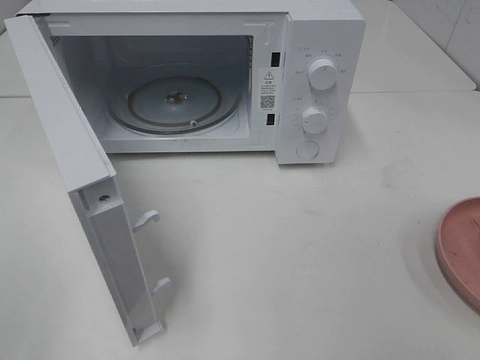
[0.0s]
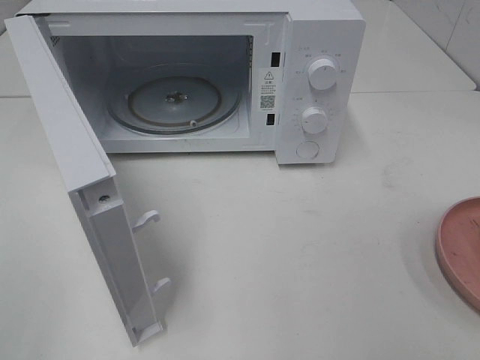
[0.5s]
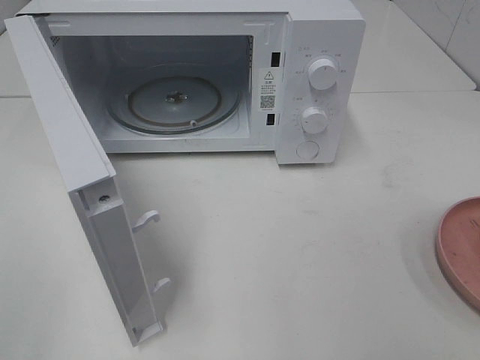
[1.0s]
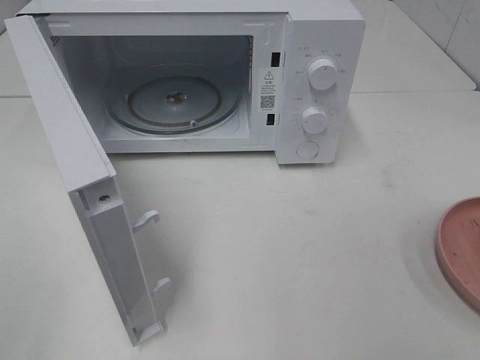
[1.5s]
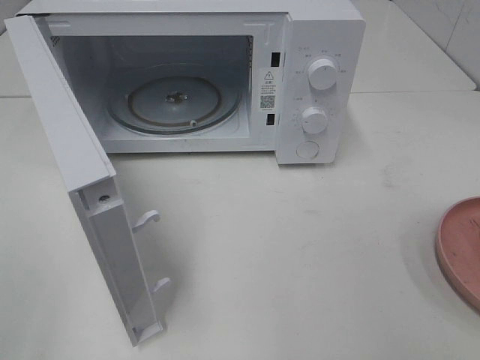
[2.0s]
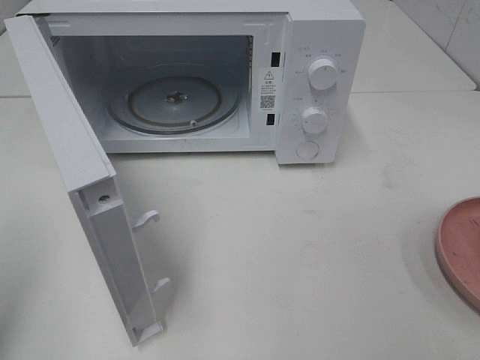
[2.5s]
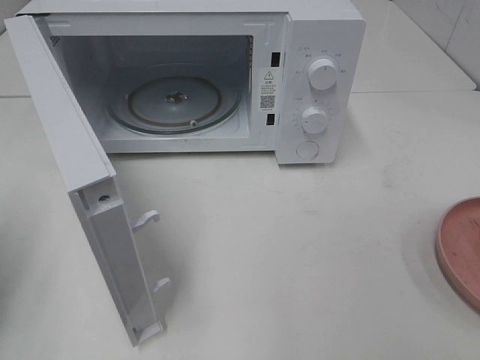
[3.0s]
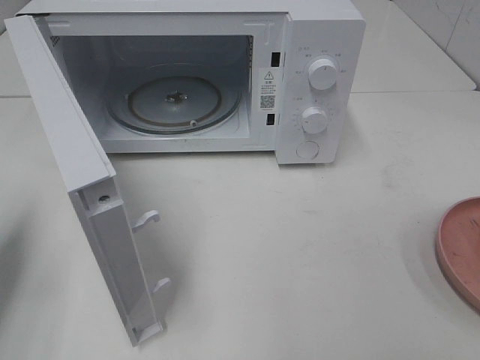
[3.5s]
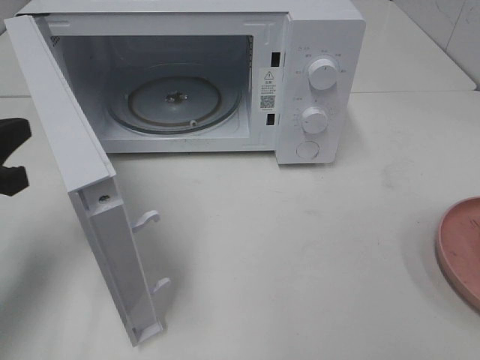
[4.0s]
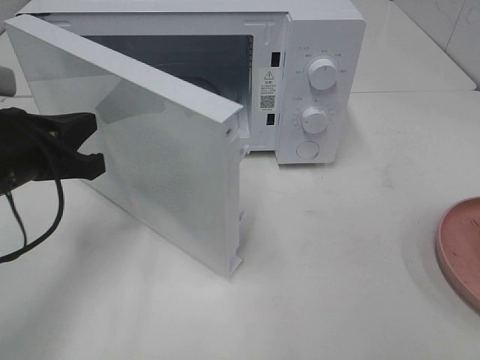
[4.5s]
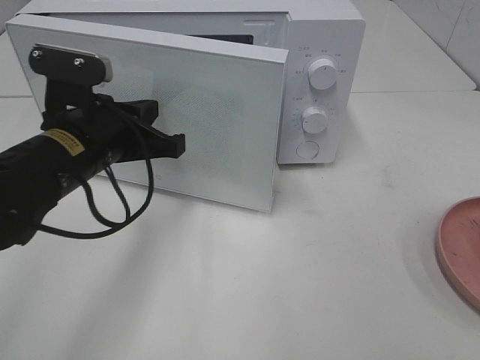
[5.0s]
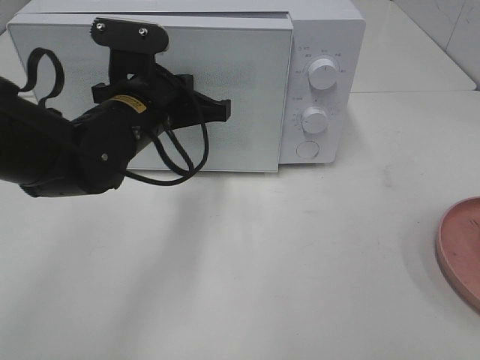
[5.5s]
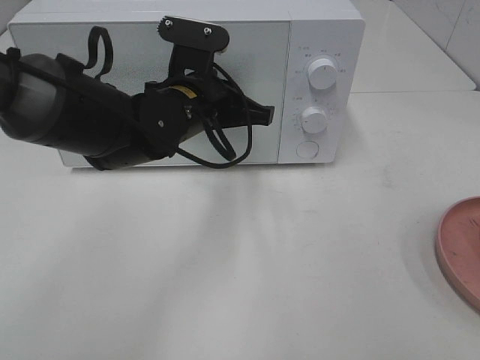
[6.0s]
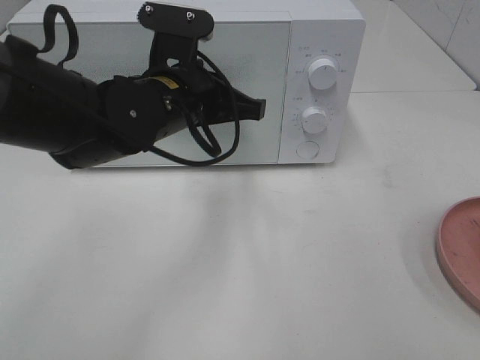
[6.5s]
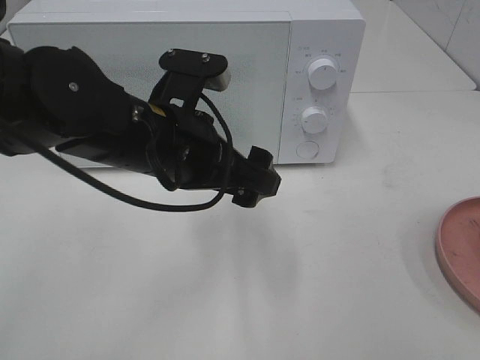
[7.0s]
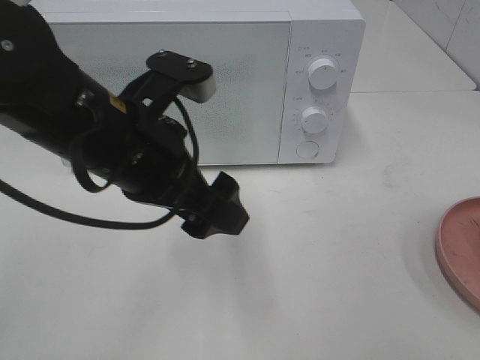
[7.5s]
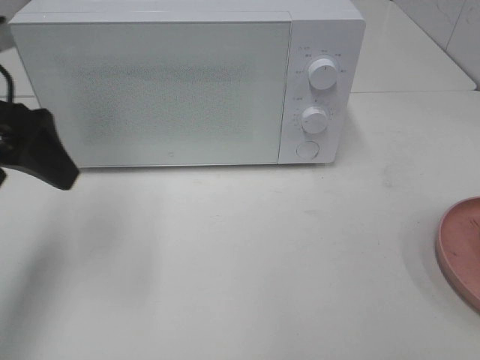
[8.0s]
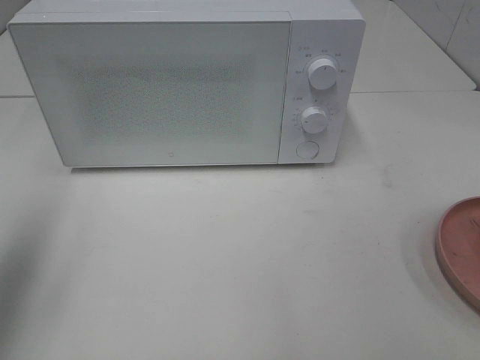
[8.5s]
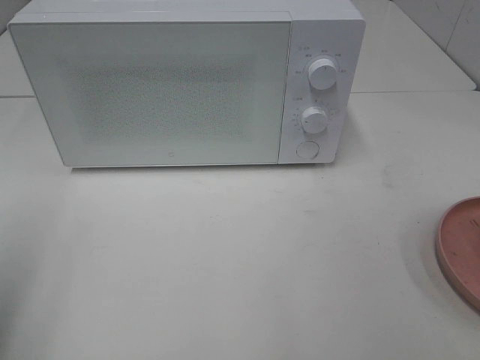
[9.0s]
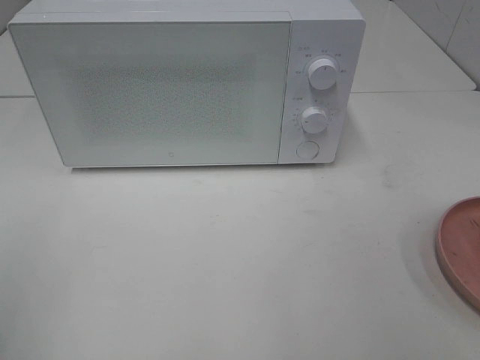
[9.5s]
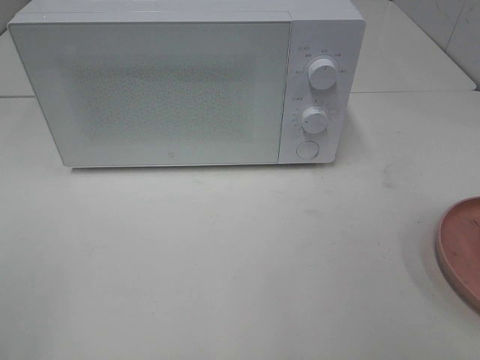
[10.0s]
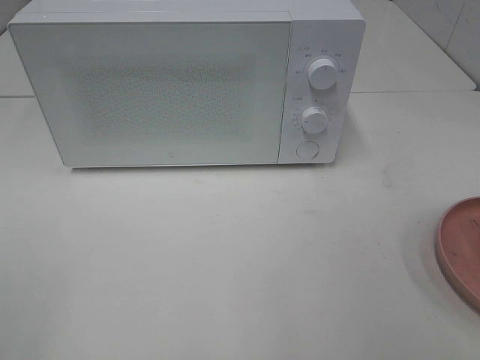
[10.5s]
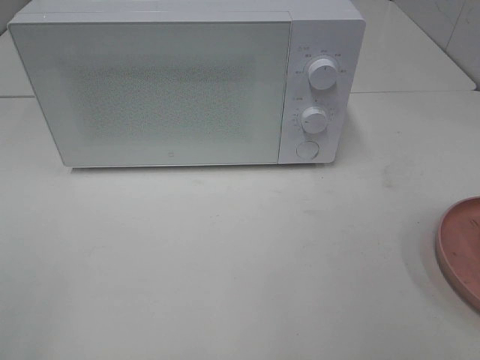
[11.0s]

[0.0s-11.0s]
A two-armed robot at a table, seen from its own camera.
Task of the whole recording: Heat the burger.
Step, 0.0s to 6.5s: Left hand: close the microwave door.
2.0s to 3.5s: The left gripper shifts about 20 cm forward and downward, and closes up.
3.5s to 5.5s: The left gripper heads to the right and forward, covering some 25 cm.
5.5s to 7.5s: The left gripper goes about 10 cm backward and upward, and opens.
7.5s to 9.0s: The left gripper goes approximately 25 cm to the left and backward.

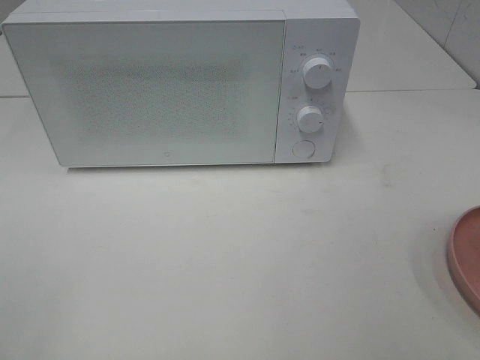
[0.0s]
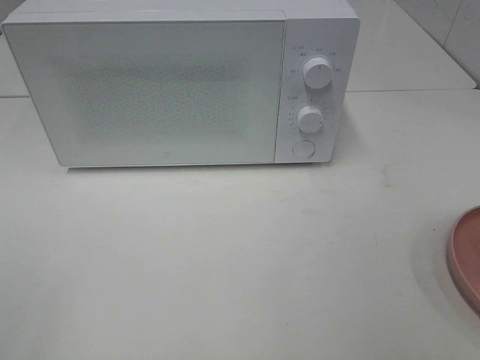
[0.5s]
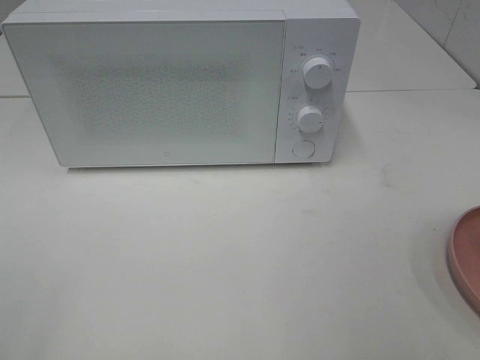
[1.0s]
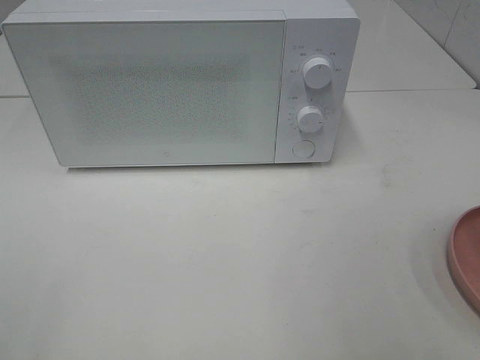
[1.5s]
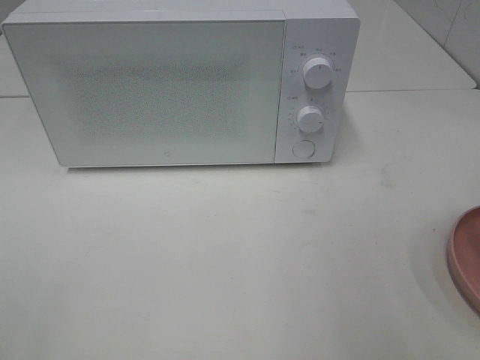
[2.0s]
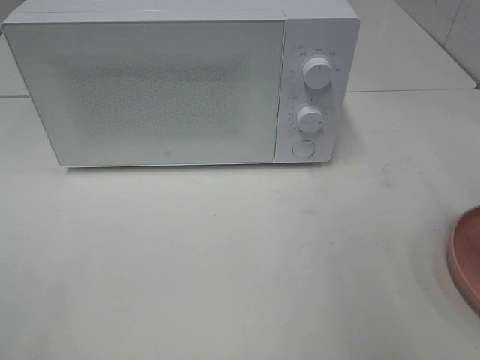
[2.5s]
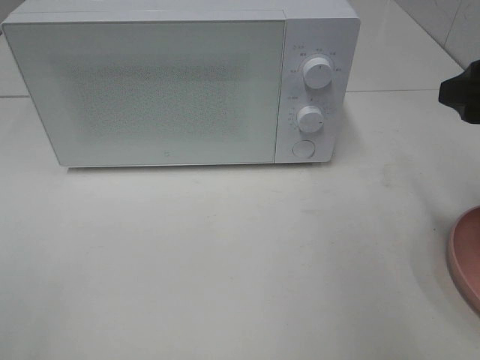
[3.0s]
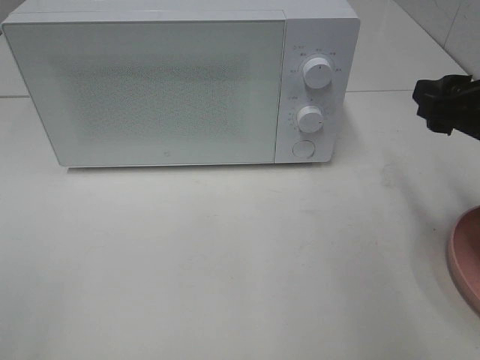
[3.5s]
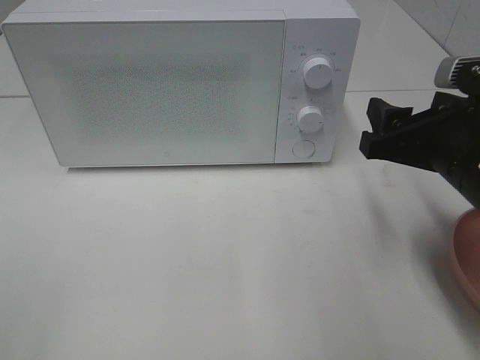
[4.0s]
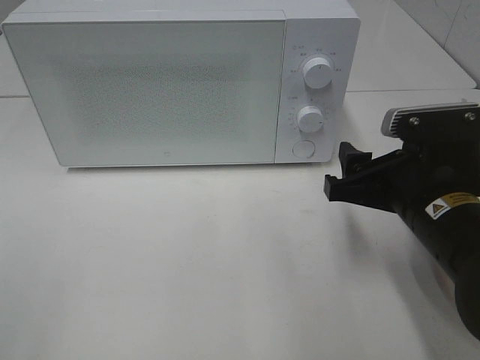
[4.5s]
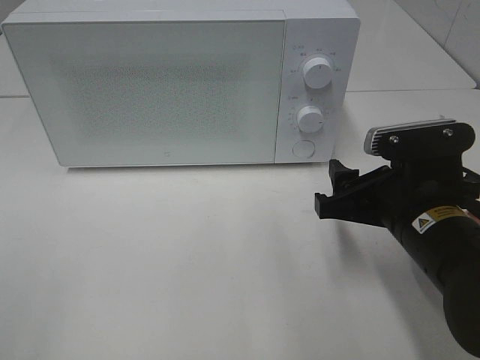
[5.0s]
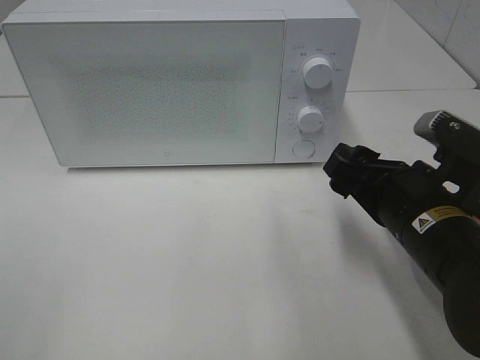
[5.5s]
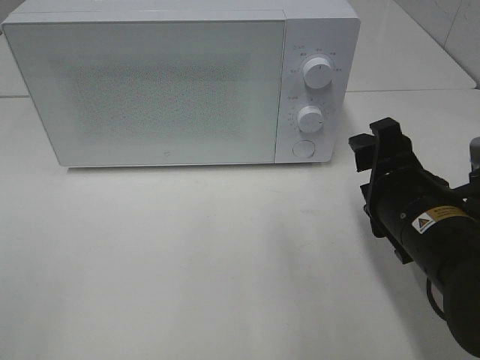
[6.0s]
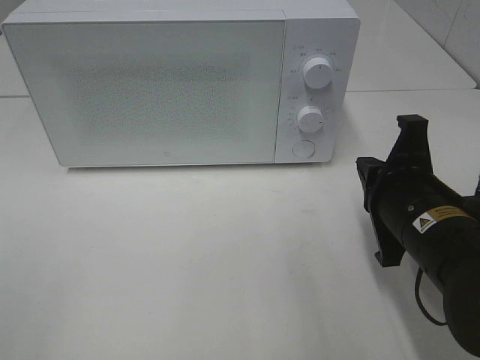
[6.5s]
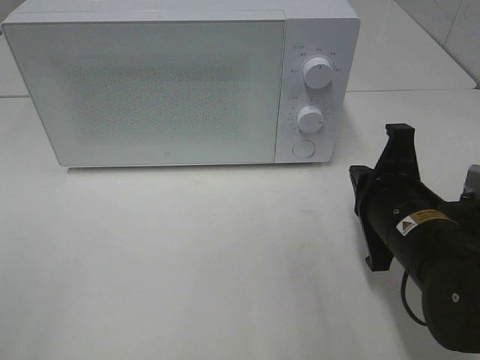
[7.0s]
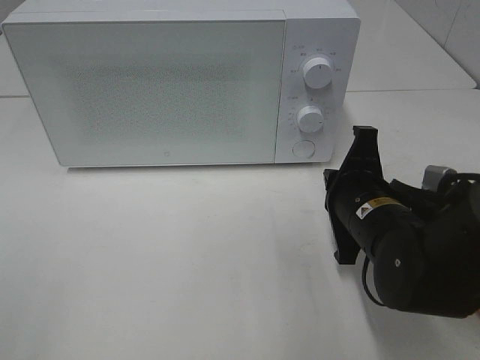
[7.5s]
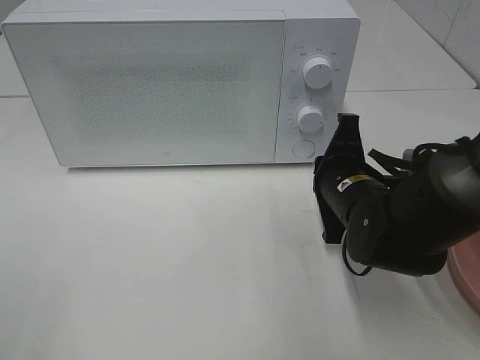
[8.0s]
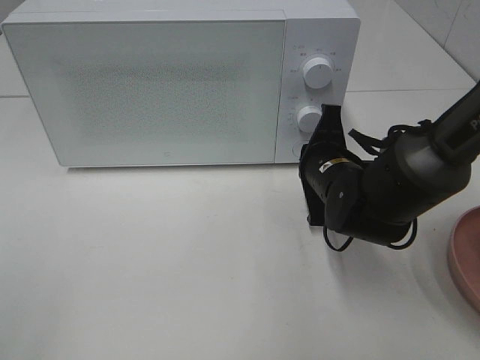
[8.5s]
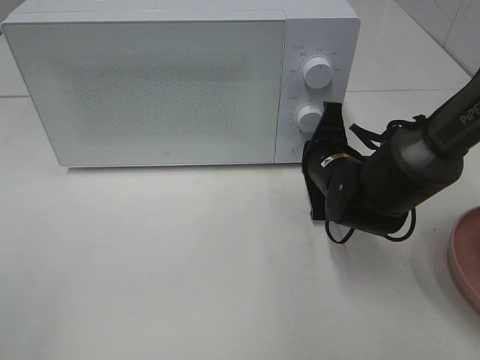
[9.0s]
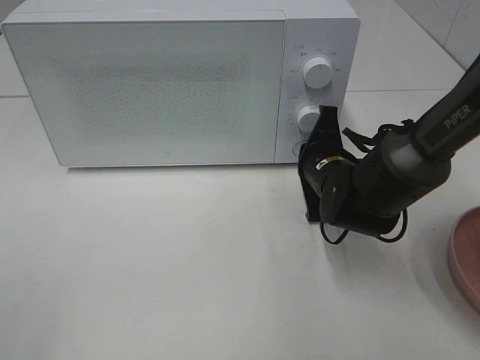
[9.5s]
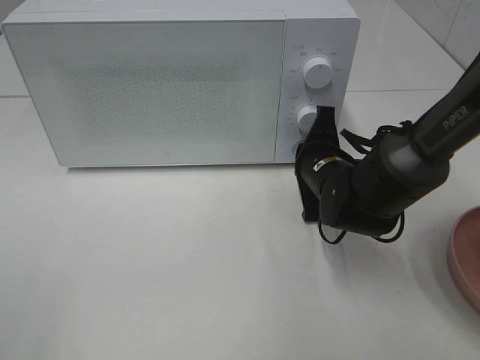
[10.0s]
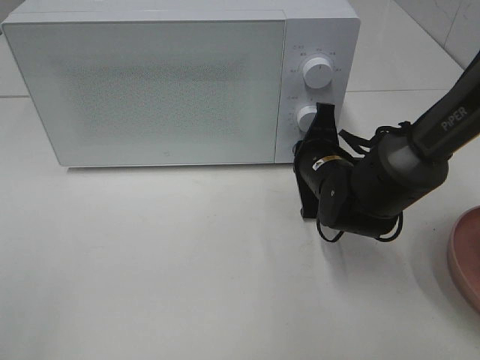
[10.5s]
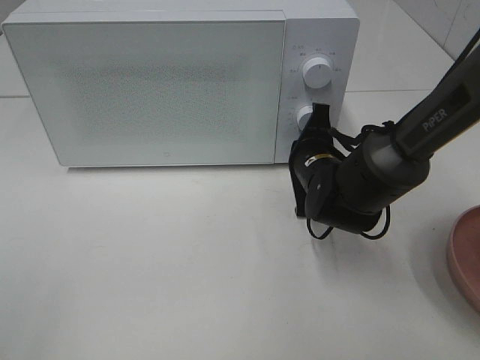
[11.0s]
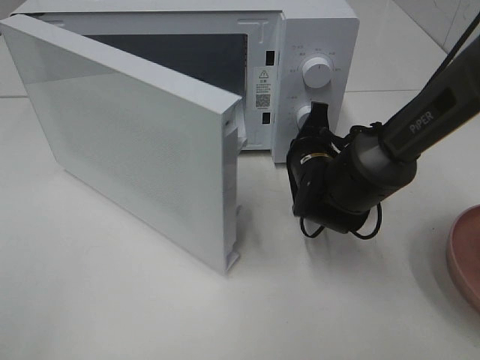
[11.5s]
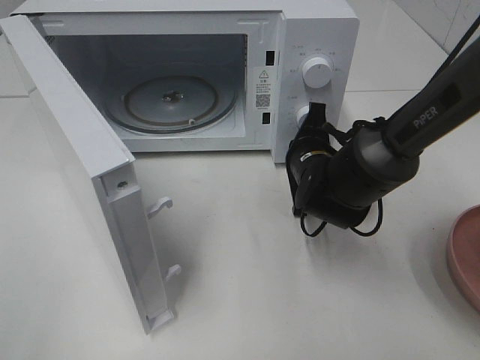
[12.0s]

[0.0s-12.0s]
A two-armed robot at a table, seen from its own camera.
Task of the whole recording: Heat the burger.
2.0s to 4.0s: The right gripper heads downward, forward and to the left, covering roughly 15 cm.
4.0s to 6.0s: The right gripper heads downward, covering about 5 cm.
6.0s to 8.0s: The right gripper travels forward by some 10 cm, and closes.
8.0s to 10.0s: The right gripper moves forward, some 5 cm.

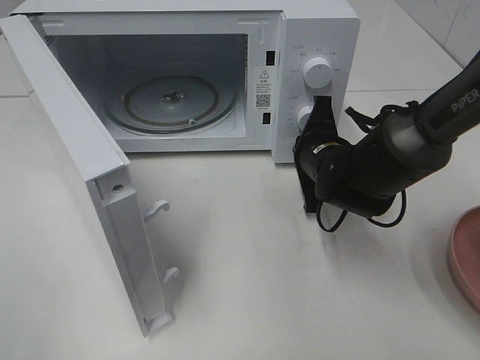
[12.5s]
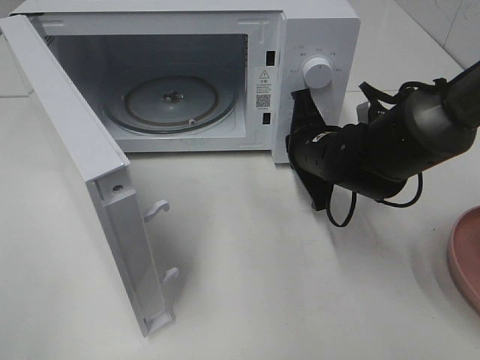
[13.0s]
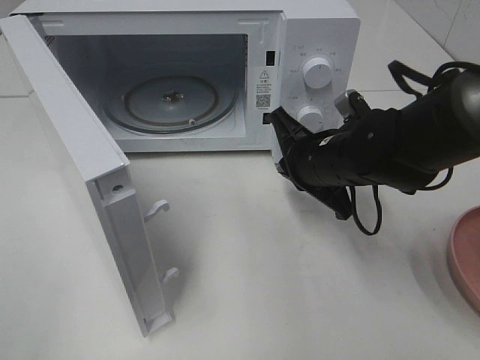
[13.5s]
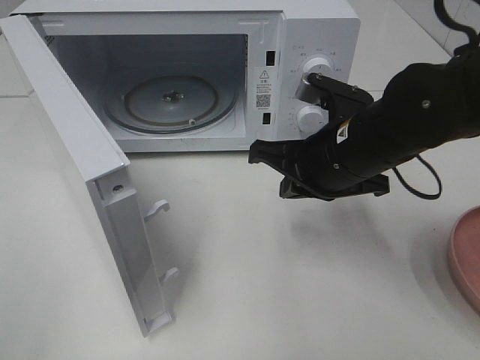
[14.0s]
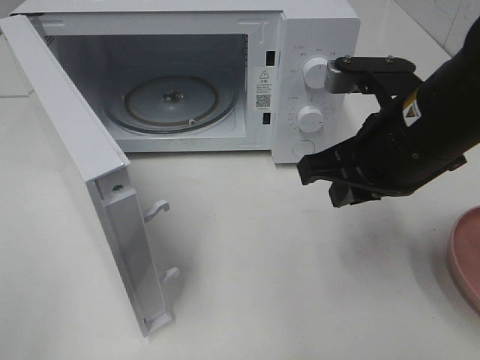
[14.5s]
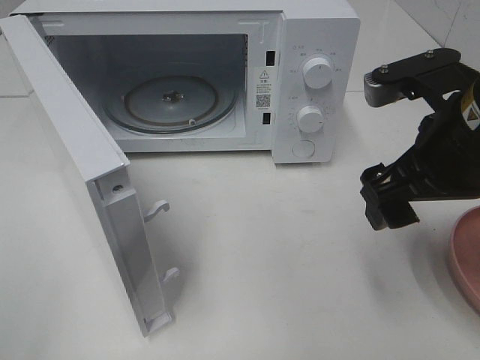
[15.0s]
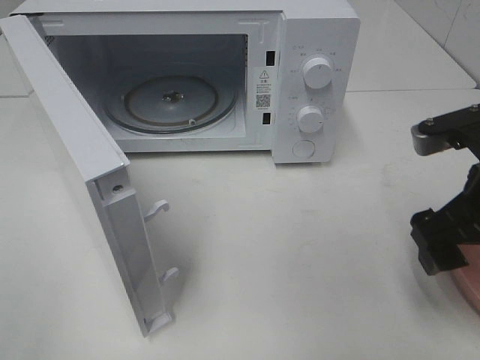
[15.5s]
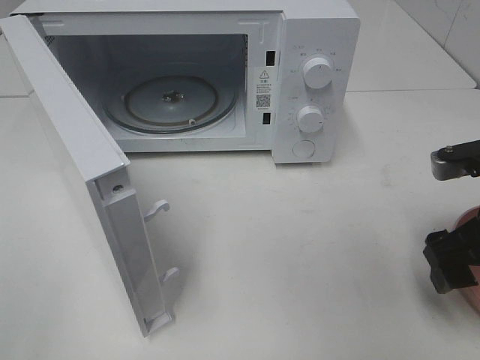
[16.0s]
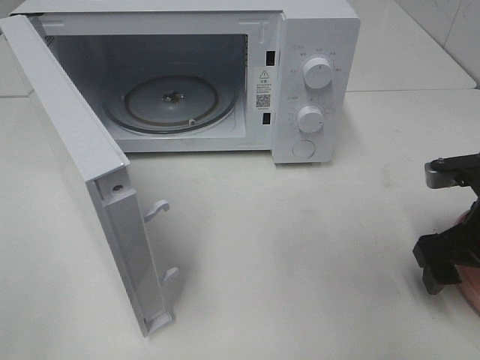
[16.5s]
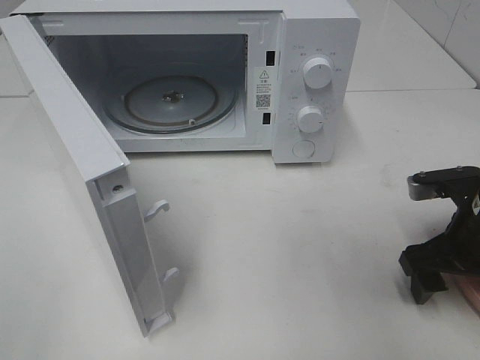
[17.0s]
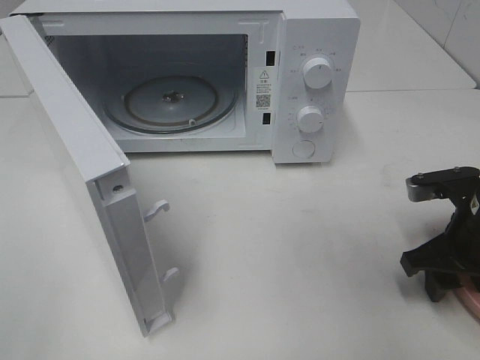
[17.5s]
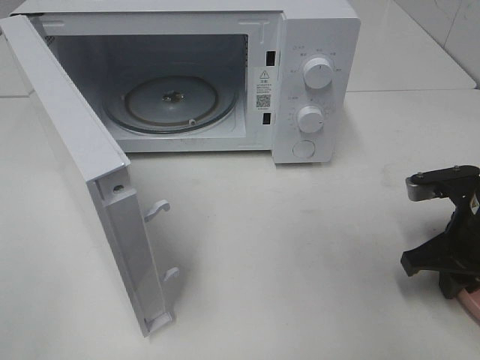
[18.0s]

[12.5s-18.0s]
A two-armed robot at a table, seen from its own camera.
Task of the whole recording: Heat the burger.
12.5s to 14.5s: The right gripper moves upward and backward, roughly 15 cm.
14.5s to 16.0s: The right gripper moves to the right and downward, about 10 cm, and opens.
16.0s to 18.0s: The right gripper travels downward by approximately 5 cm, and closes.
